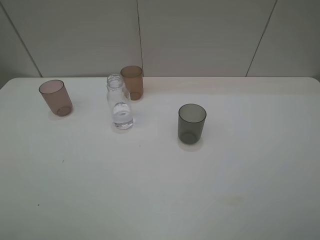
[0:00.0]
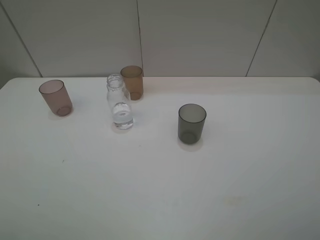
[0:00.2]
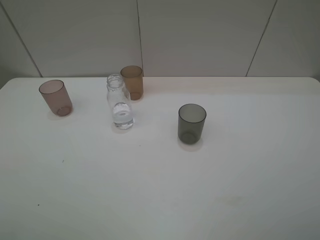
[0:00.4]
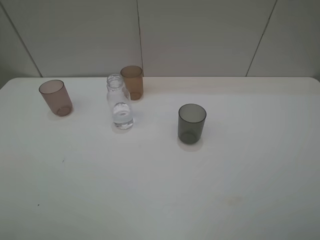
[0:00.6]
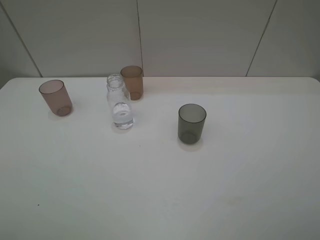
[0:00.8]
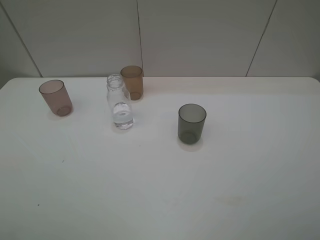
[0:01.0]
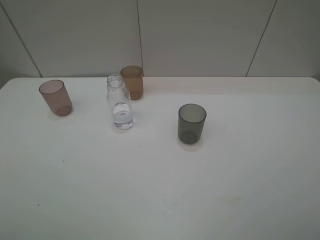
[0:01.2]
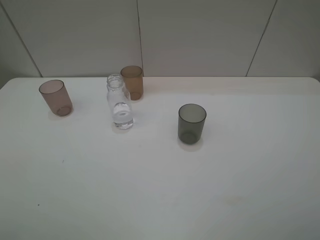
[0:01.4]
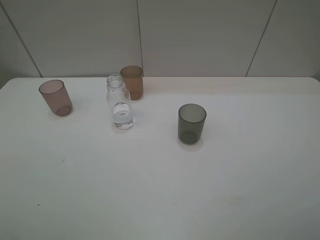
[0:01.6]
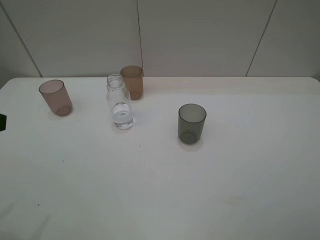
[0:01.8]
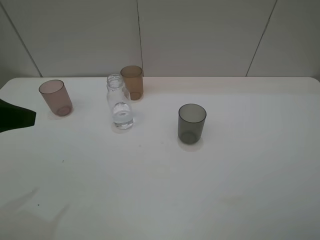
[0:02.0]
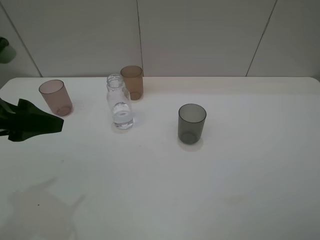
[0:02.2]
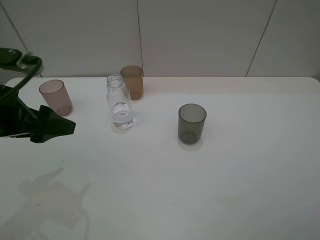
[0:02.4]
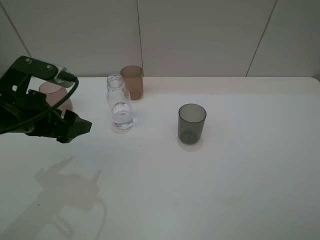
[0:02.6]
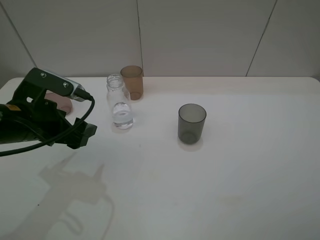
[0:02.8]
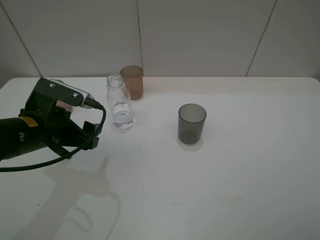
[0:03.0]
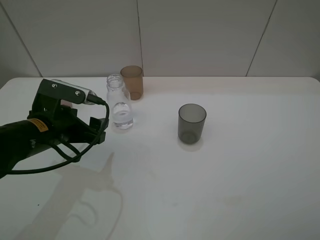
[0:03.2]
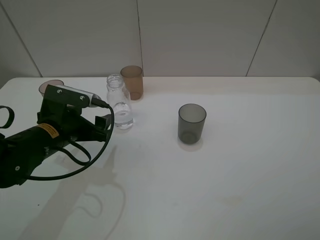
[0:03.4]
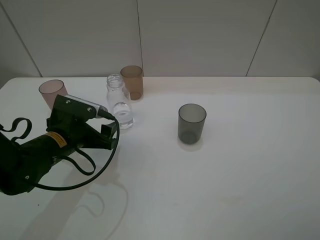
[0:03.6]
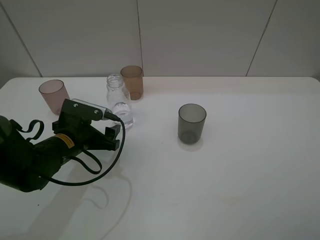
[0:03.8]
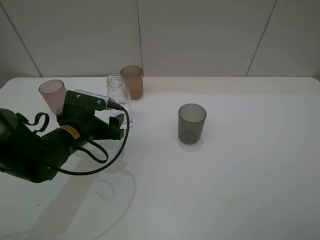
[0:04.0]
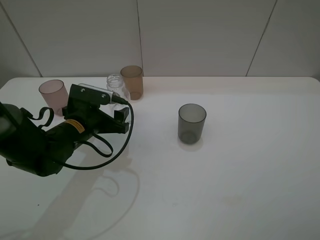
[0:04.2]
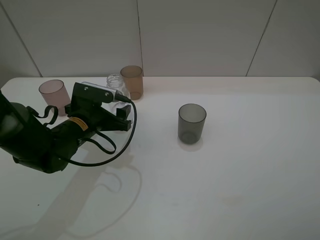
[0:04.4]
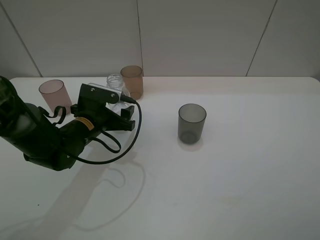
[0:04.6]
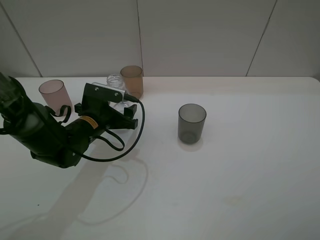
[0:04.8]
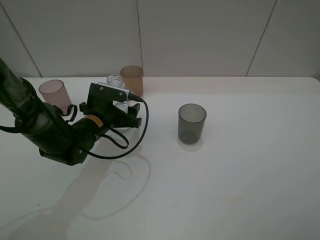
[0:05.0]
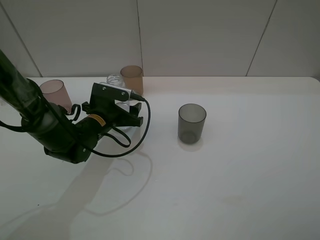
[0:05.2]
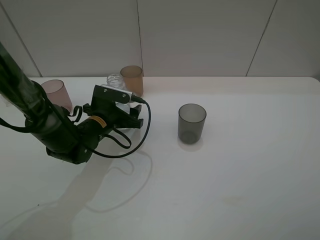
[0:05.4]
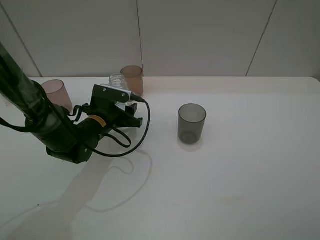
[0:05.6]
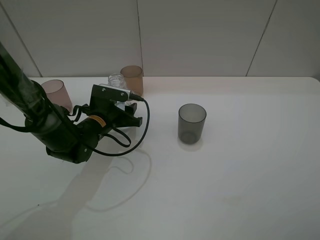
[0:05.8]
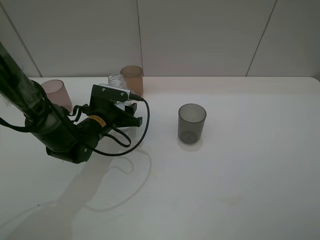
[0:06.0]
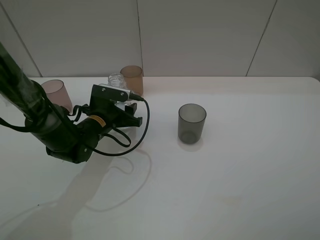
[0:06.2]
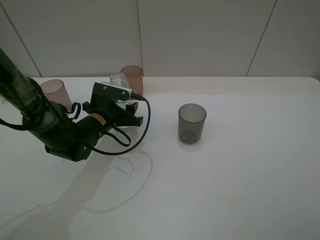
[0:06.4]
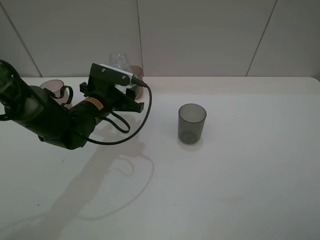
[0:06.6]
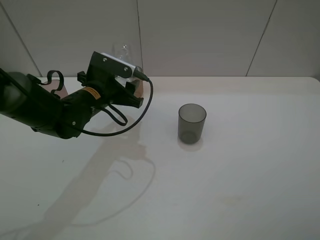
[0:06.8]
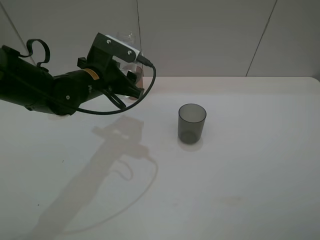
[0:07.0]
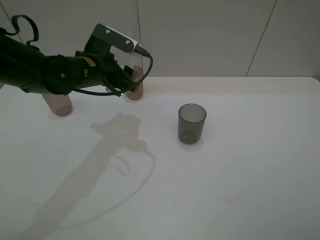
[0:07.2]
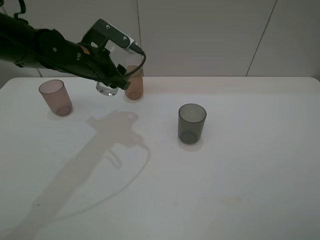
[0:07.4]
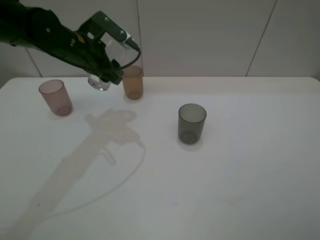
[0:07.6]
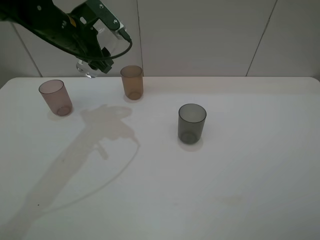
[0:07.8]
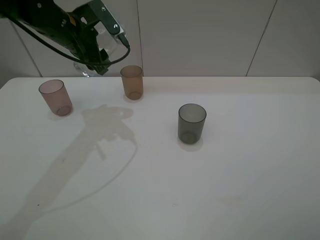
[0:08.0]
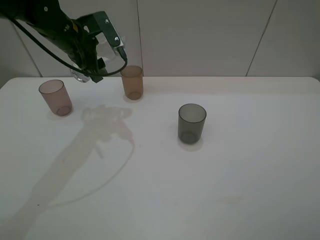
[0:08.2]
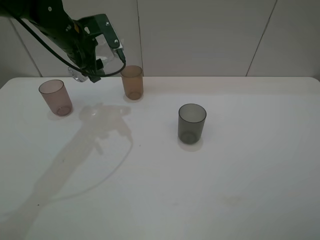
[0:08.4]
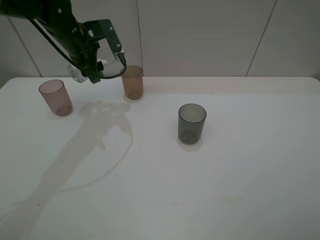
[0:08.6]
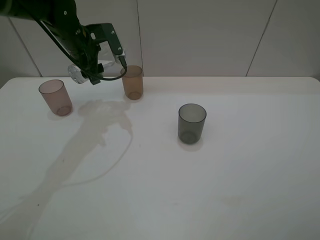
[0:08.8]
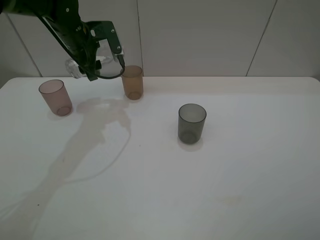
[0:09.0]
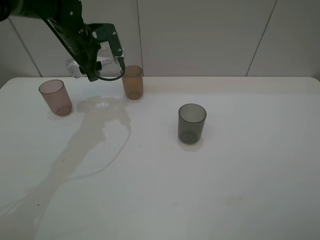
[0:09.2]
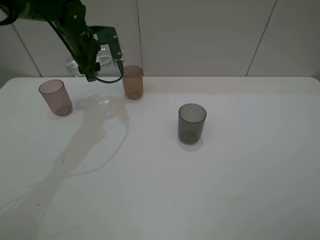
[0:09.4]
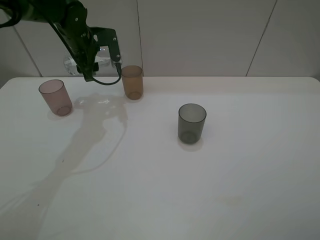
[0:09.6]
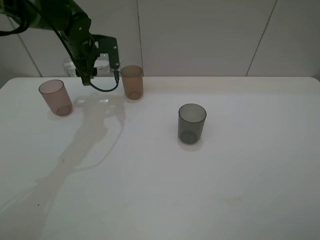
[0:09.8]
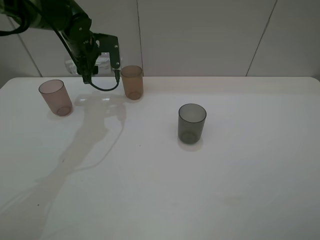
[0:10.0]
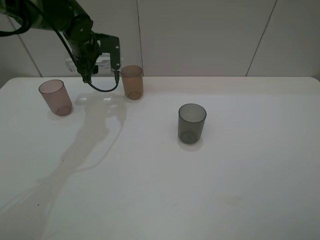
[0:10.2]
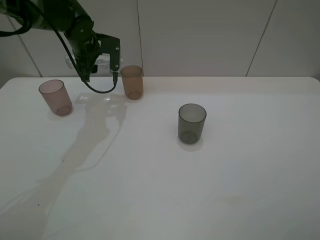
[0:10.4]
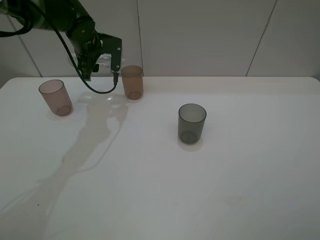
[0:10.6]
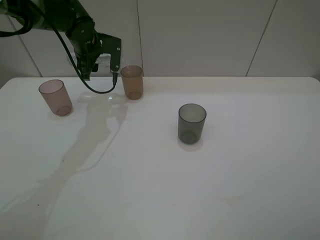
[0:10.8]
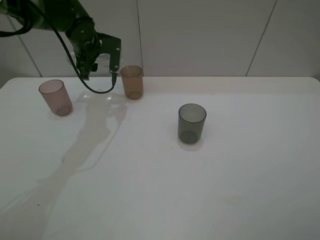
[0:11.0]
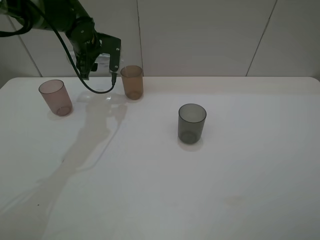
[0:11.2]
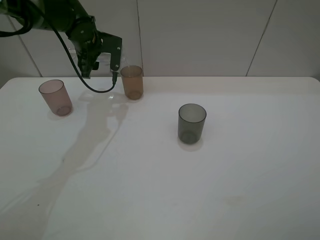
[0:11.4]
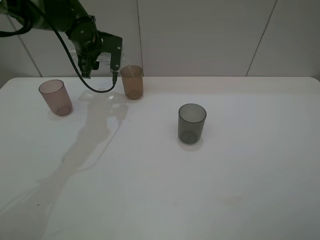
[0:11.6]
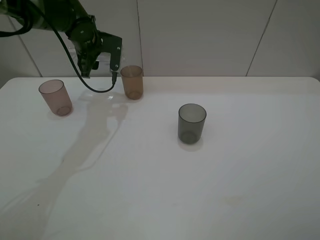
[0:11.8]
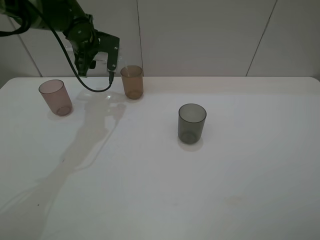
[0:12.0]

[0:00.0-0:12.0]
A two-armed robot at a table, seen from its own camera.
Task of the whole recording: pick up the bottle filled with water and pour water into the middle cup of the three cups.
Step, 0:00.0 to 0:05.6: Grasp the transparent bottle with the left gripper.
0:01.6 to 0:03.0: The left gripper goes some 25 cm downward, forward and to the right.
0:03.0 to 0:04.4: The left gripper is displaced forward and downward by approximately 10 cm.
0:04.4 to 0:06.0: The left gripper ends up about 5 cm from where it was, and closes its fingers.
0:06.0 to 0:07.6: The left gripper travels upward and forward by about 15 cm.
0:07.6 to 0:09.0: The left gripper heads forward, covering approximately 5 cm.
0:10.4 to 0:12.0: The grippers move only a little.

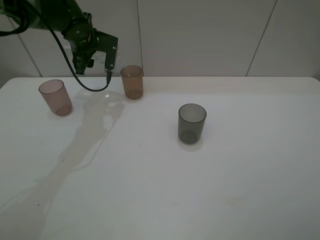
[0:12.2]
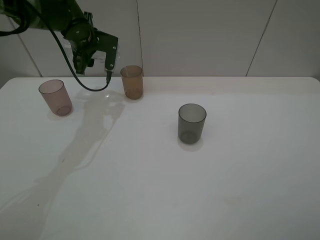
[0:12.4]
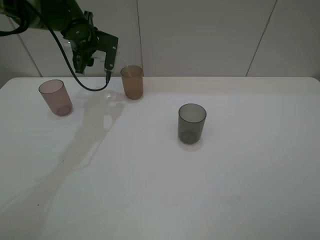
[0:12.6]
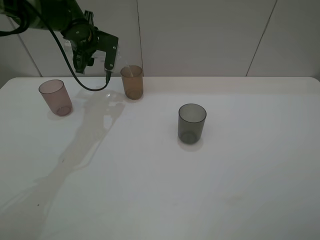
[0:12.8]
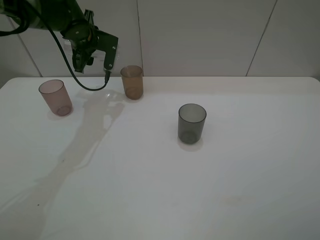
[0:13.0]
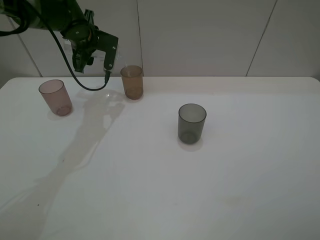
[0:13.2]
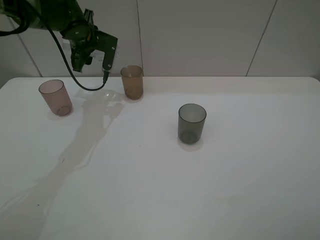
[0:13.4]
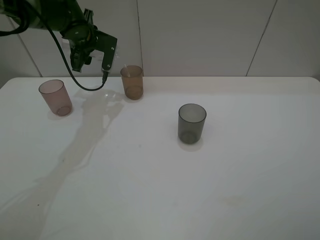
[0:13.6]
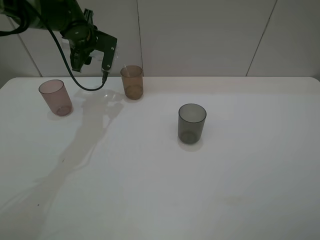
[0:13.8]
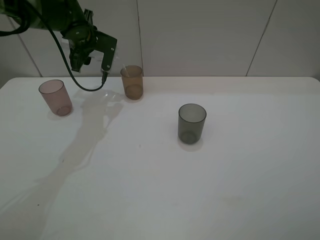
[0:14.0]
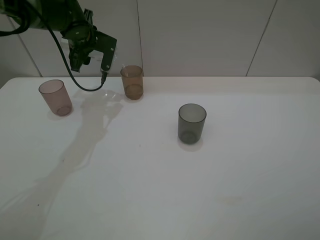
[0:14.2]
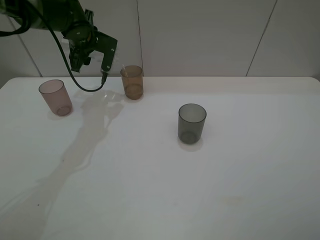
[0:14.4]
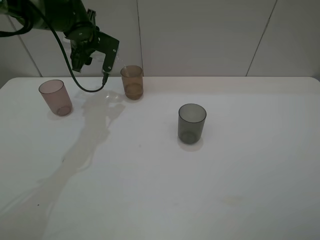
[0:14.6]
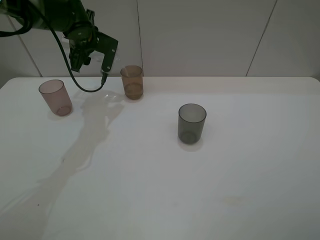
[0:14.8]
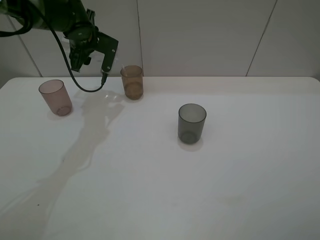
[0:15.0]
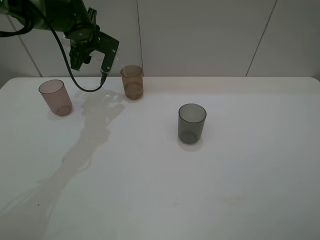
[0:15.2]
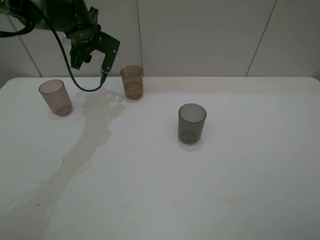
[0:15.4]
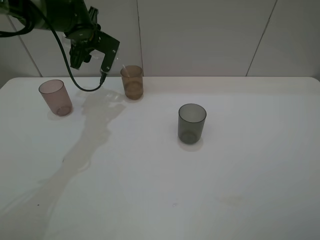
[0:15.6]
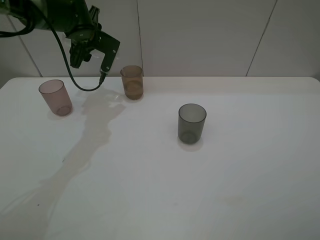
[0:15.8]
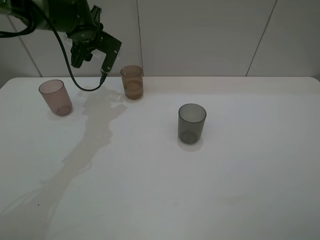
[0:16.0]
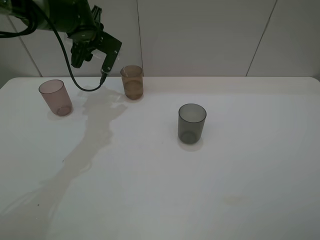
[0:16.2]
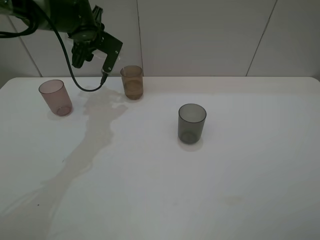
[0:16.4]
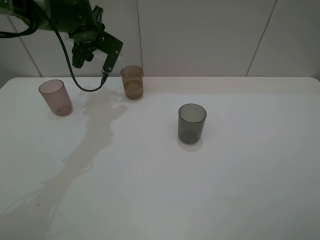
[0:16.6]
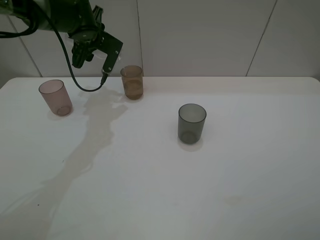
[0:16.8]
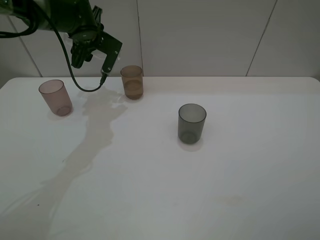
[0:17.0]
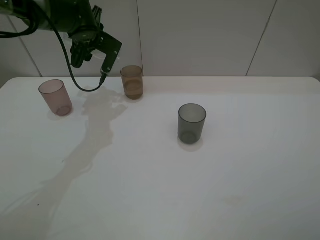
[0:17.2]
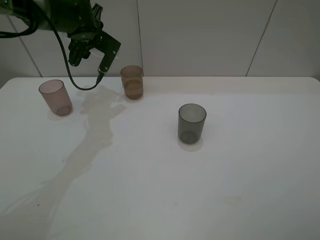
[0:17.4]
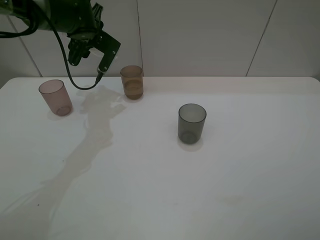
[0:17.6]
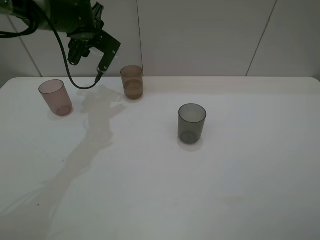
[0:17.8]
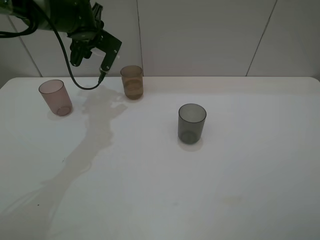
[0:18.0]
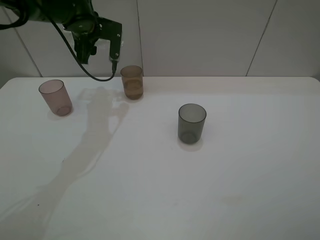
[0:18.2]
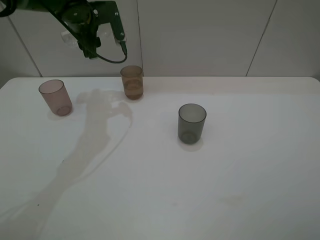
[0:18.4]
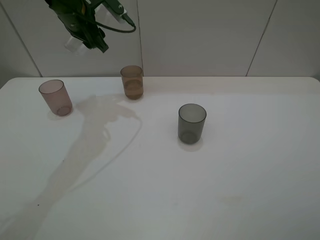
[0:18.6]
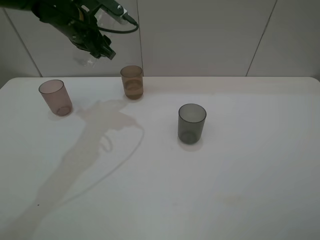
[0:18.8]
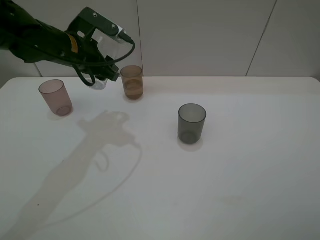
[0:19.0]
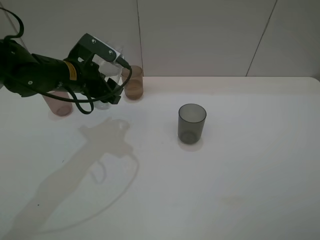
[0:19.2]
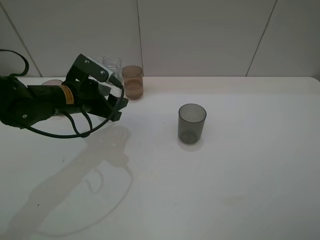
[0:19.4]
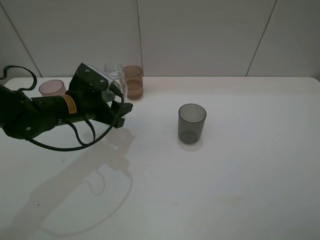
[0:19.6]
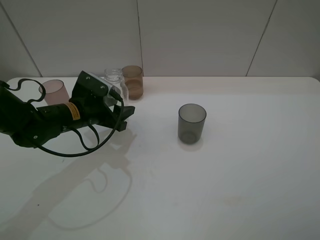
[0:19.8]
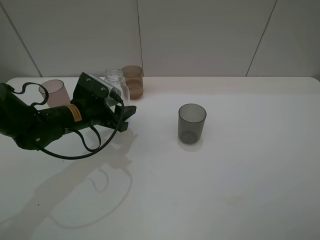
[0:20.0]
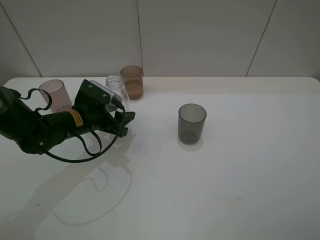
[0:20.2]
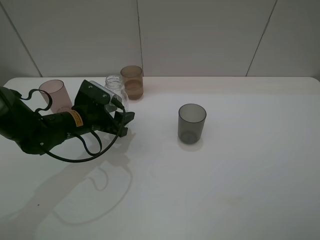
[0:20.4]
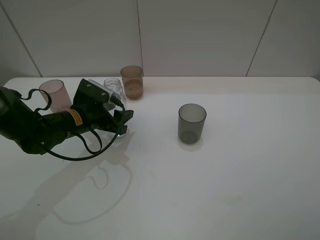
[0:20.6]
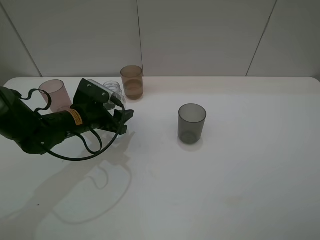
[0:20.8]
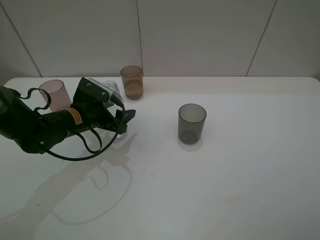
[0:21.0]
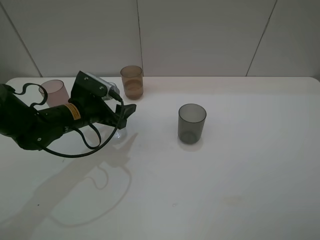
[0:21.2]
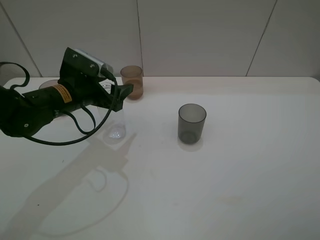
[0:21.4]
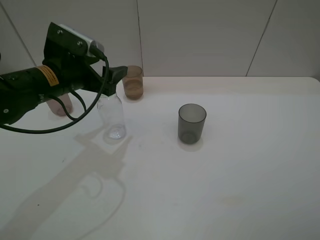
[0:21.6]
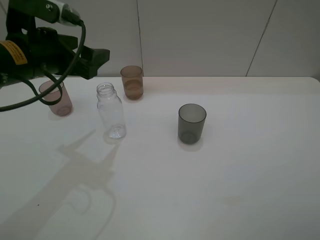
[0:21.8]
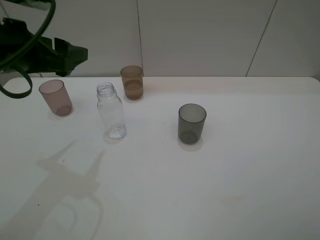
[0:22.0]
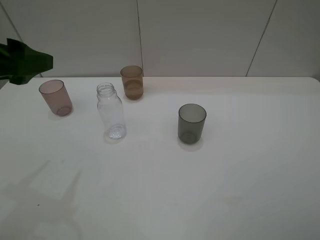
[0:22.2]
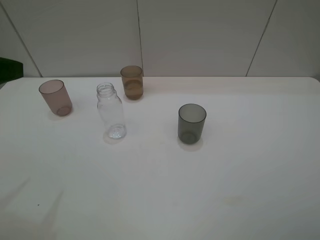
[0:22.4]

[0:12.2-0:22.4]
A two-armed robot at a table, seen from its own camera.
Task of the whole recording: pick up the bottle filled with water and pour water into the middle cup of the three cups.
Step, 0:12.2 to 0:15.0: Pour water from transparent bottle to brown cup with the left gripper.
Step, 0:15.2 to 0:21.2: Place the transparent bottle with the left gripper.
0:12.2 to 0:16.6: There are only small adjustments of the grippers.
0:16.6 to 0:18.0: The grippers stay close to where they were, moving slightly.
0:18.0 to 0:19.4: The left gripper goes approximately 15 cm backward.
0:19.4 to 0:21.0: The left gripper opens.
0:21.0 to 0:22.4: The left gripper moves upward, backward and to the left, approximately 30 cm.
